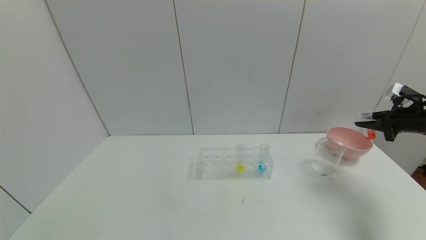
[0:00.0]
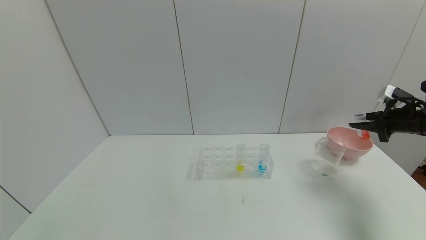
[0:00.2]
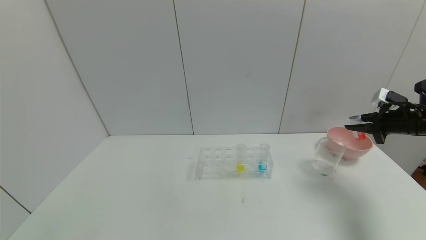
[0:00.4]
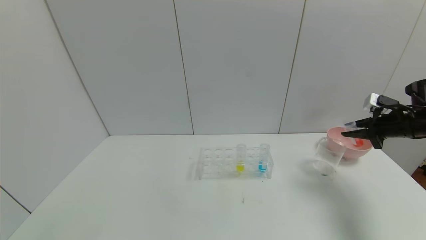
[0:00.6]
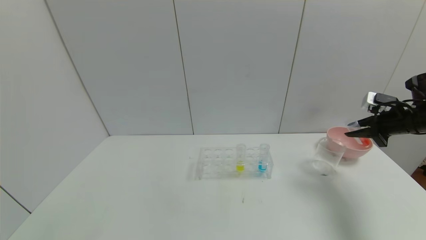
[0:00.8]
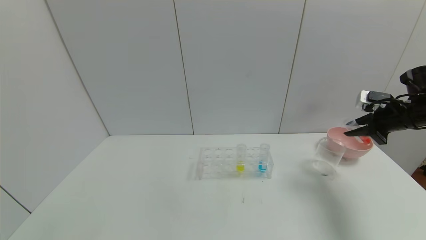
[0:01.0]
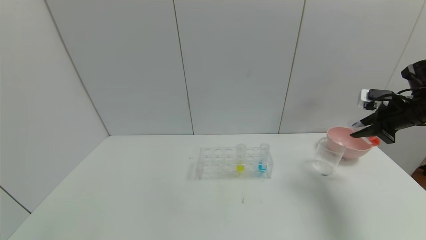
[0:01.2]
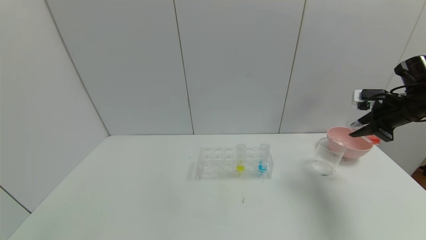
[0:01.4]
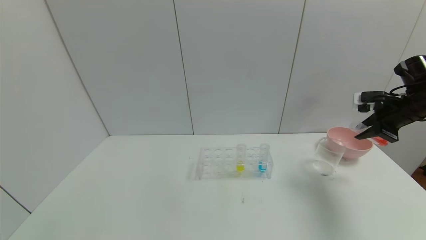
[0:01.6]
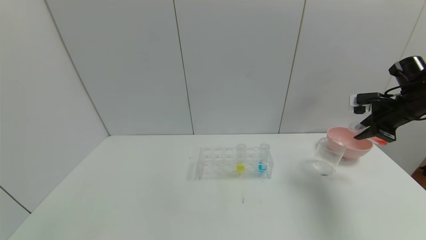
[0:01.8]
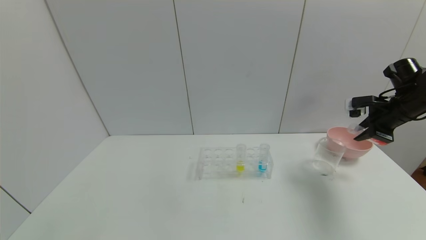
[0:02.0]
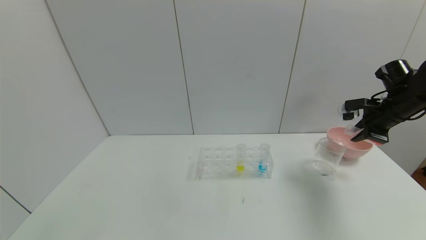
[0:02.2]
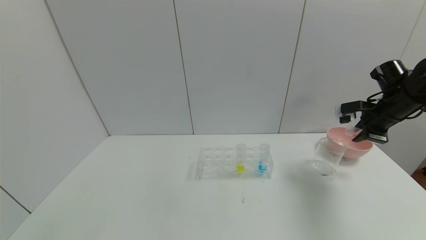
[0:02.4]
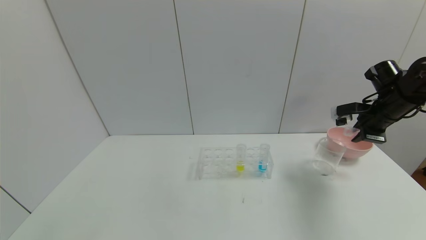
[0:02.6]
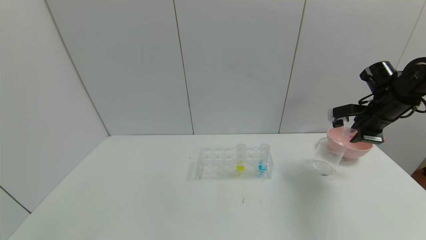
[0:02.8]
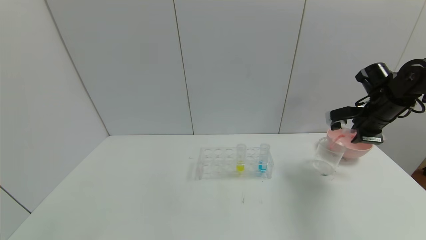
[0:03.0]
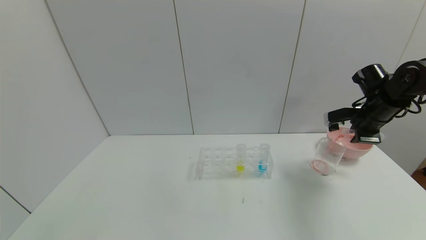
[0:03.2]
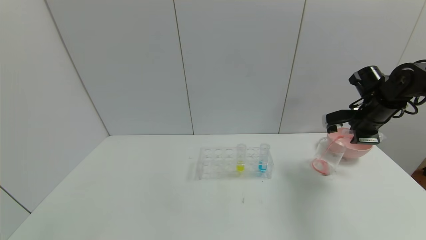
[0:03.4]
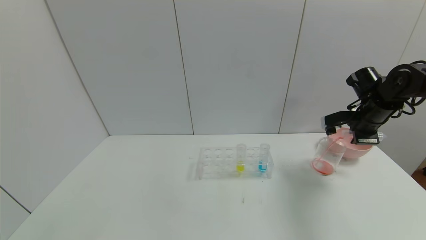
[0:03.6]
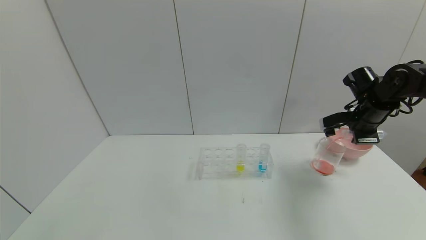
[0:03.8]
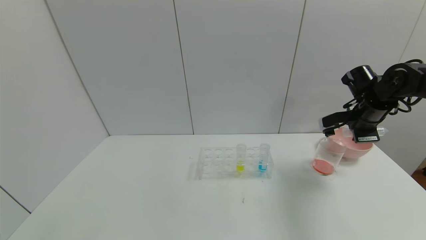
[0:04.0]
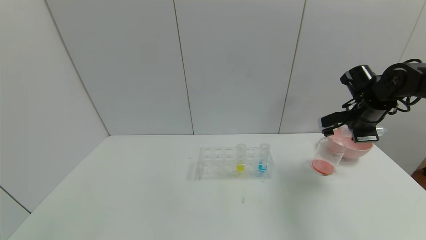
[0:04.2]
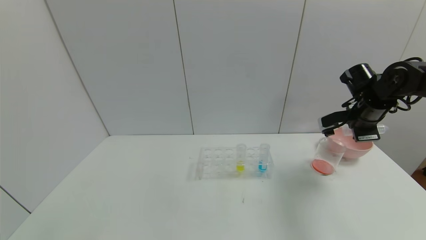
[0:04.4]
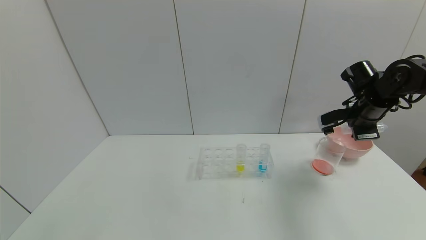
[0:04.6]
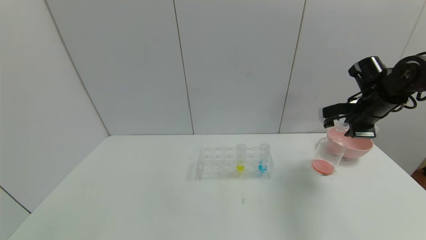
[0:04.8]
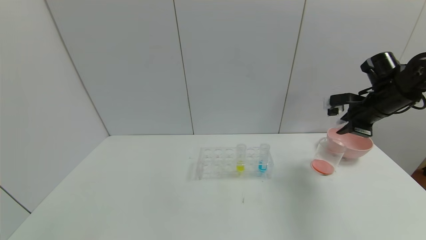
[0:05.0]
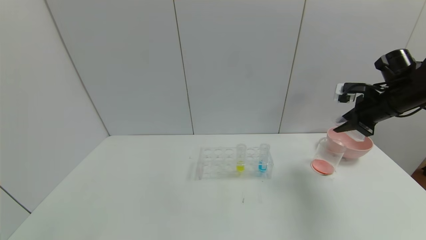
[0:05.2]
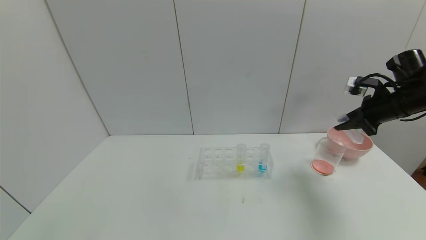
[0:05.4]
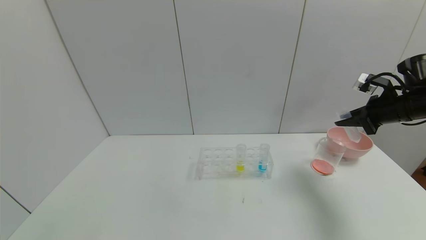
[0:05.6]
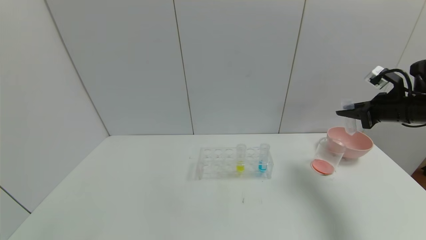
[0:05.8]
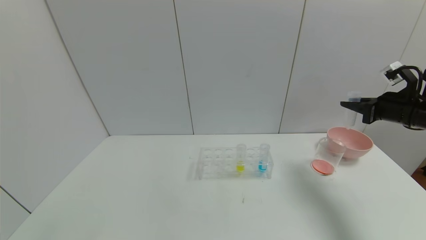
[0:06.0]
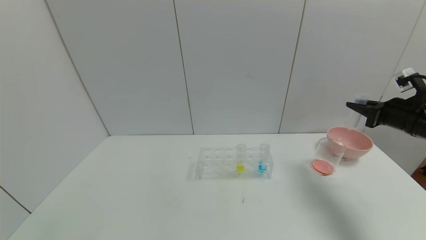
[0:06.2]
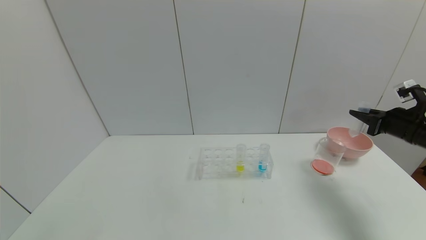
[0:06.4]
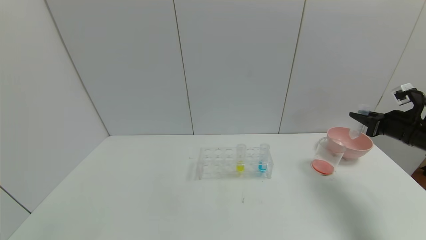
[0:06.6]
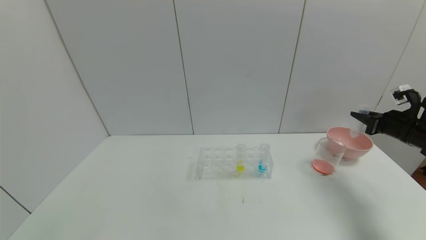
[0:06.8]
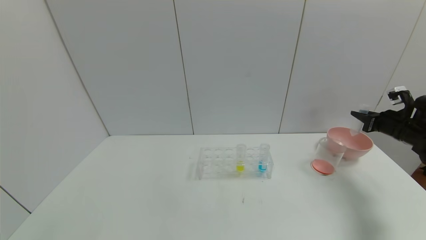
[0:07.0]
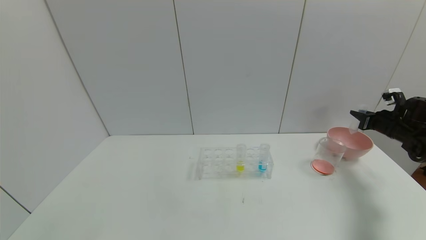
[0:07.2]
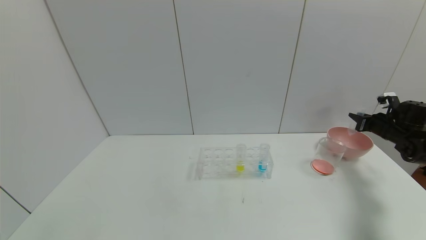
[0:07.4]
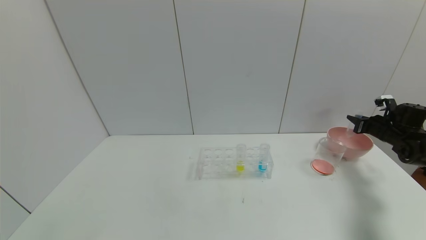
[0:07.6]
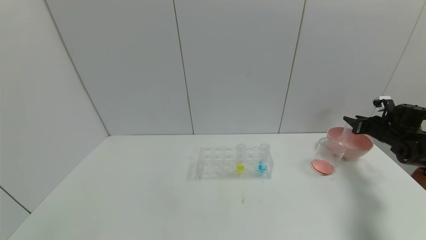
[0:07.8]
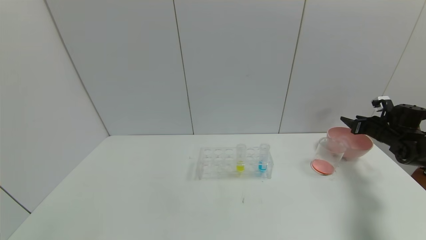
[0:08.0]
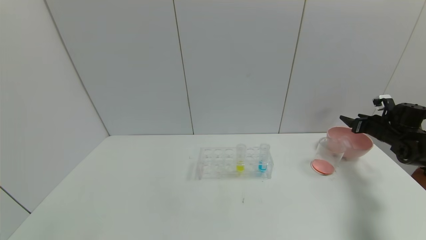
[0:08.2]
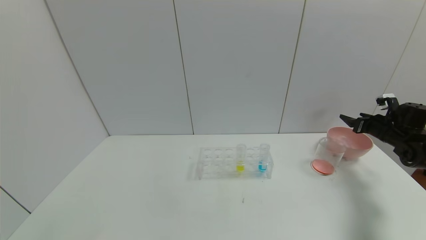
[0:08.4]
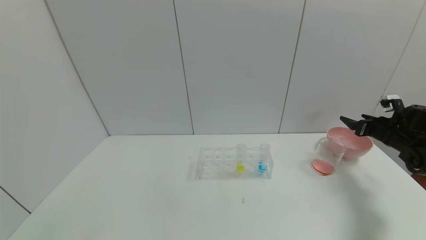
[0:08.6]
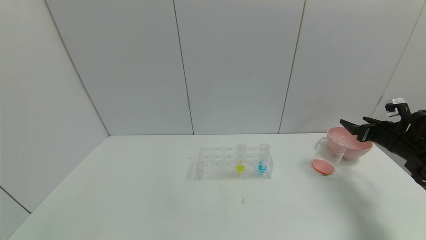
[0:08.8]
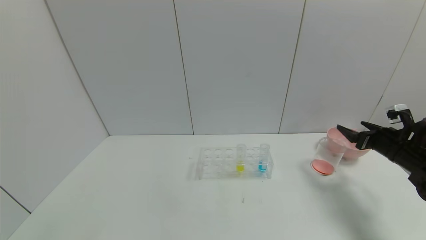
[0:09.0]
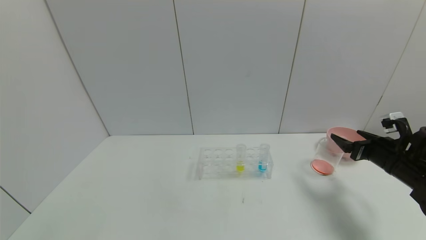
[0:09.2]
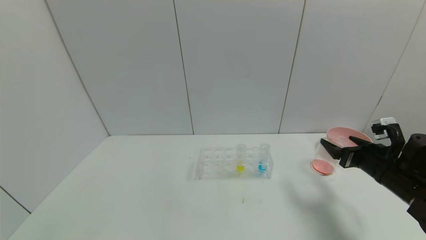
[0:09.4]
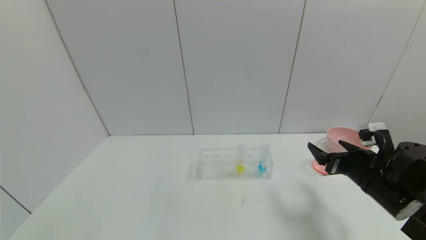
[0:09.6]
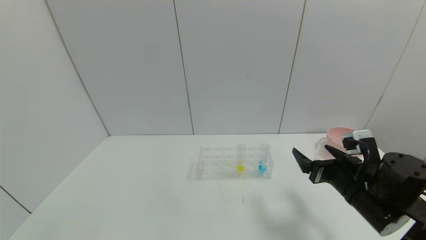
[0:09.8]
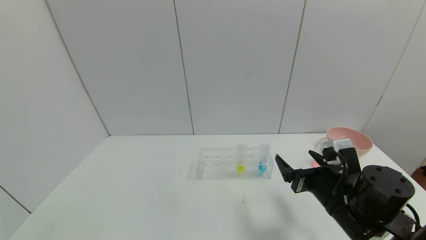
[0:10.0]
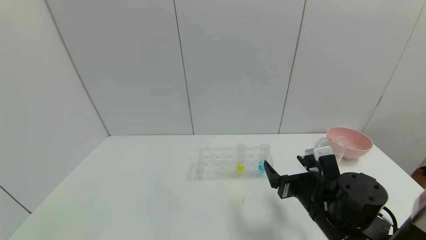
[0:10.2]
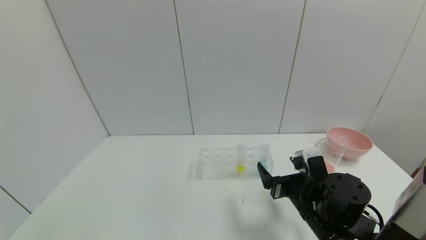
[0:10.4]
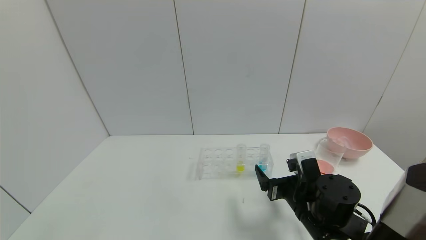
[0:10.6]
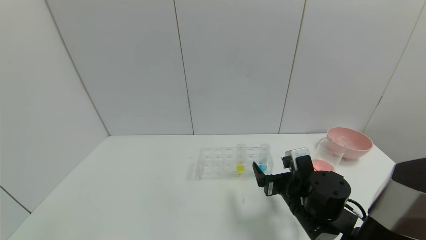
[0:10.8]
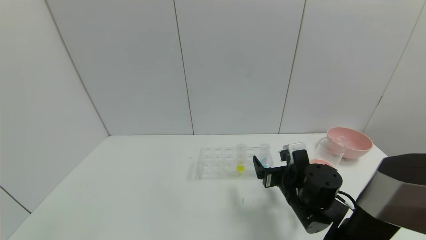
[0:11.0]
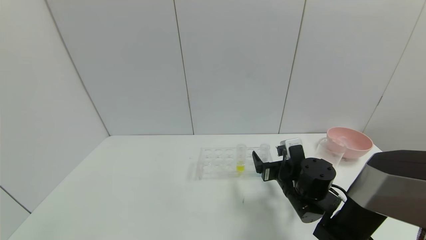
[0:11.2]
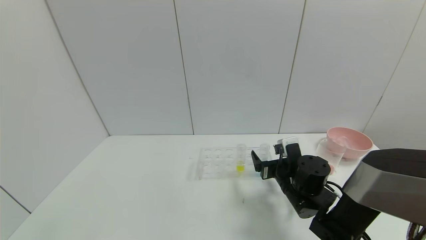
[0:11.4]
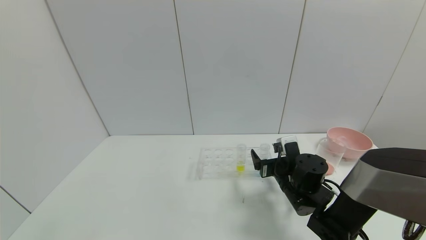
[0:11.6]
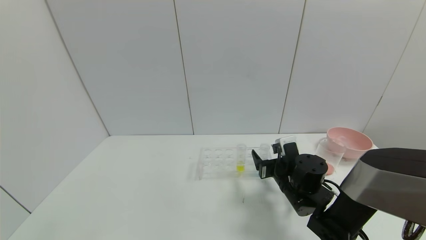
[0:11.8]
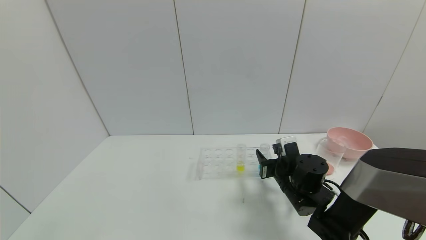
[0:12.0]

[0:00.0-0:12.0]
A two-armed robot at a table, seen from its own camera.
Task of the whole recording: pick up the test tube with red pigment and the test tube with blue pigment by grippers and pour them into the container.
Step, 0:00.0 to 0:04.8: Pour the yellow reagent into the graduated cylinder with the right gripper.
Step, 0:05.0 to 0:08.6: Place the test tube into the bowl with the right gripper.
0:00.0 to 0:01.6: The right gripper goes about 5 cm to the left.
0:01.6 to 0:03.0: The right gripper changes place by roughly 5 cm.
0:03.0 to 0:04.4: The grippers make only small movements.
0:04.4 to 0:06.0: The right gripper heads to the right, covering roughly 5 cm.
0:06.0 to 0:07.6: The right gripper moves downward, forward and to the right, approximately 15 cm.
0:07.6 to 0:09.0: The right gripper shifts about 10 cm backward and to the left, and opens its fingers.
0:09.0 to 0:10.4: The right gripper goes approximately 30 cm to the left and backward.
0:10.4 to 0:12.0: The right gripper moves forward, approximately 10 cm, and closes its fingers.

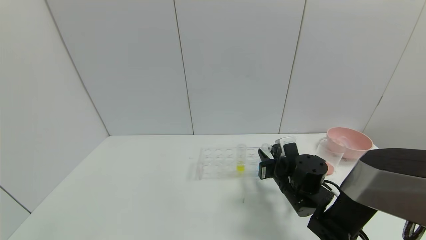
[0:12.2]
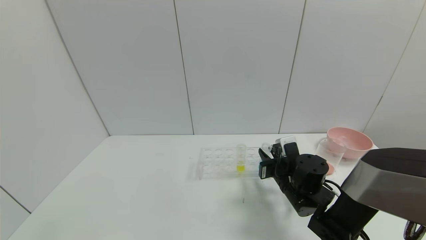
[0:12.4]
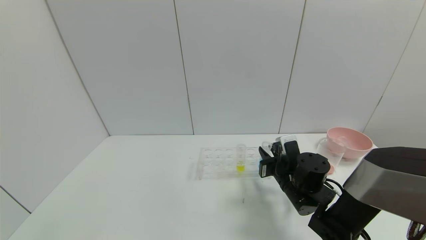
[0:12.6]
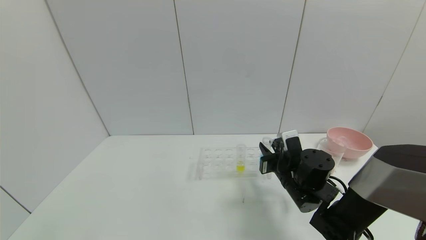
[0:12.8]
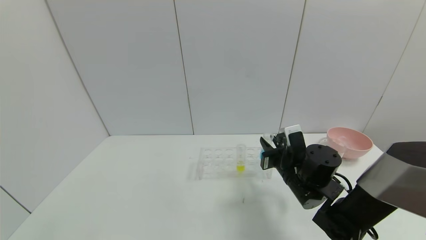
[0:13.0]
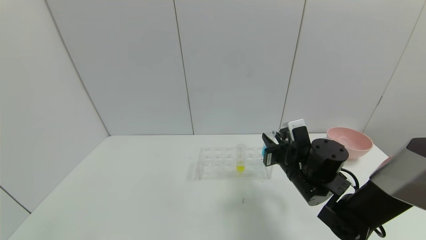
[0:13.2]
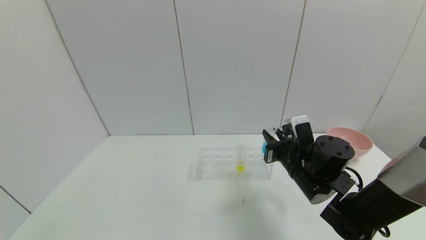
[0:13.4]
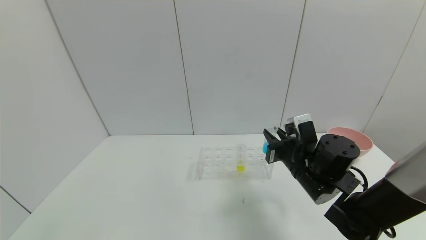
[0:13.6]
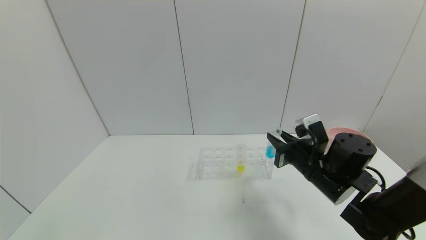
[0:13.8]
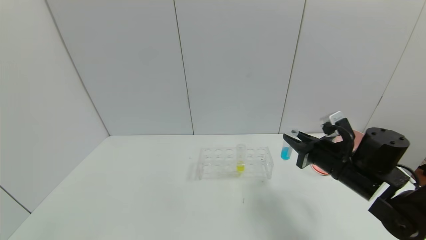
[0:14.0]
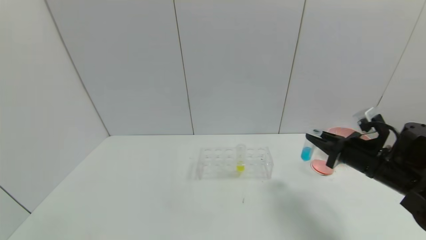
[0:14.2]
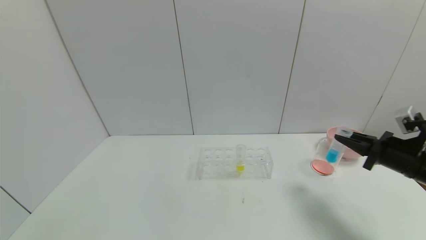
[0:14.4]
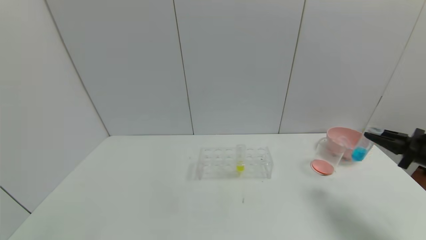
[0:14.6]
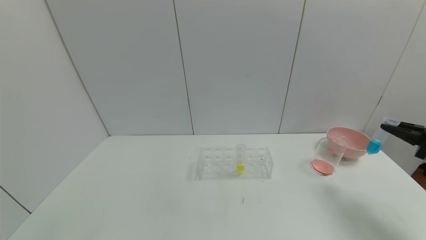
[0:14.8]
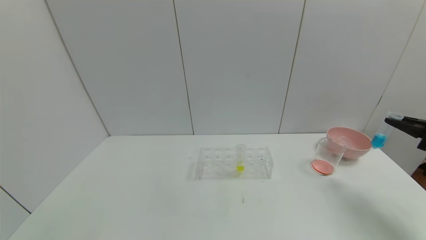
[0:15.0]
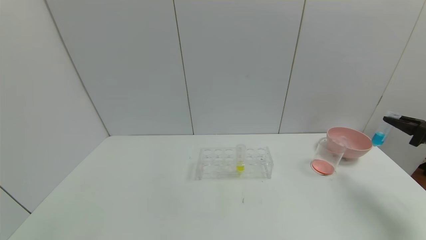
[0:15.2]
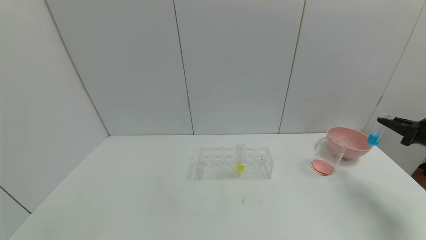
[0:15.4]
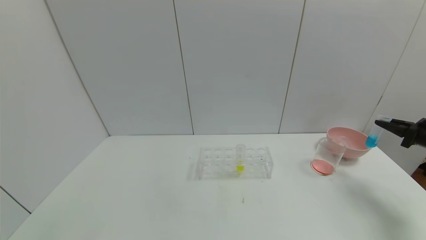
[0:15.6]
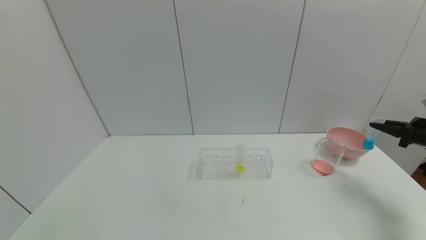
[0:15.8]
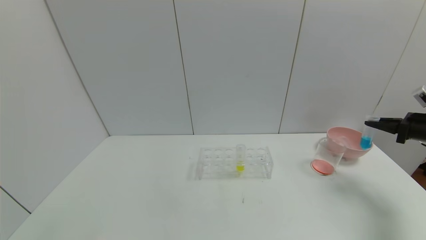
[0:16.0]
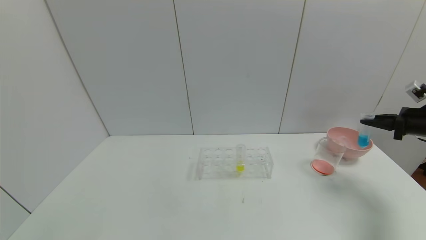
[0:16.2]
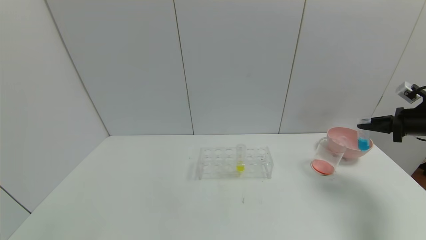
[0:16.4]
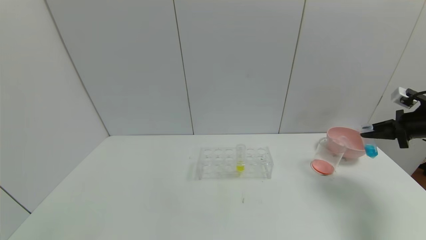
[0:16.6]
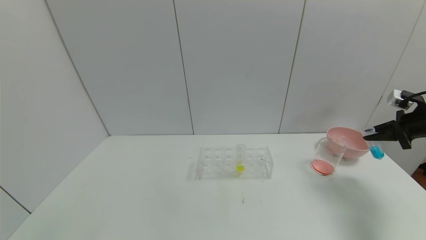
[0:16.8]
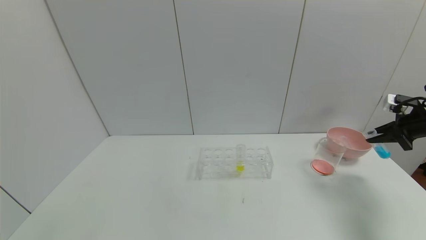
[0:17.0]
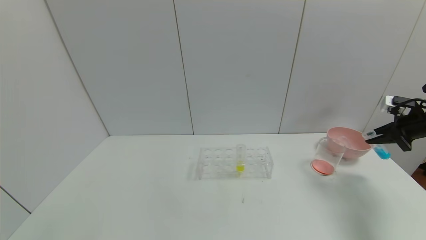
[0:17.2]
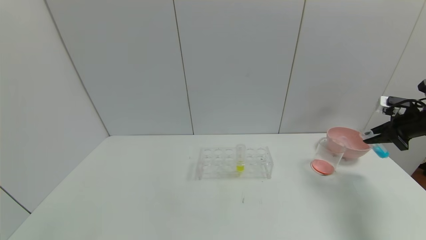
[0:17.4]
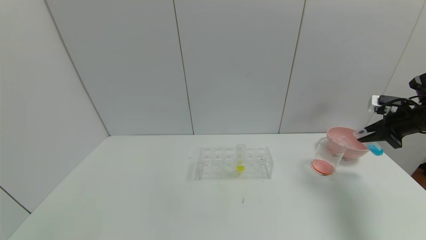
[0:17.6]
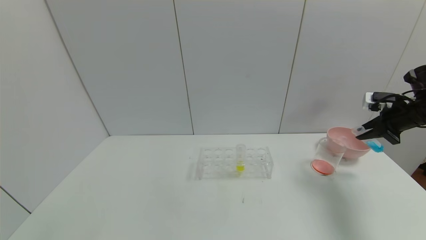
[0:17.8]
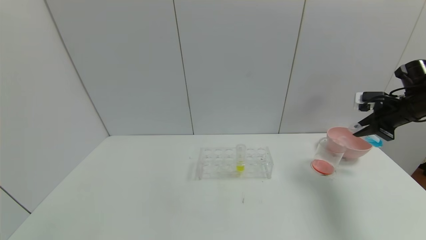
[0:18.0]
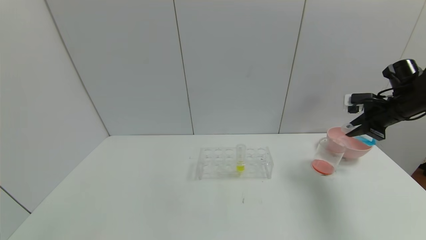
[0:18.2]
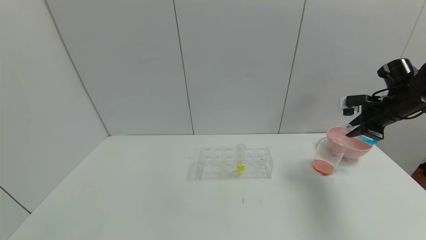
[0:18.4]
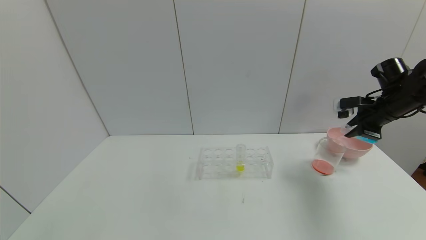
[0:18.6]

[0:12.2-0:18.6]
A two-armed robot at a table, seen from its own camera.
Task of the whole recording: pick up the test tube with red pigment and the test tube with blue pigment by grippers and pour them into the container.
0:12.2 to 0:13.8: The right gripper goes roughly 5 cm upward.
0:13.8 to 0:15.4: The right gripper travels to the right by some 30 cm.
0:15.4 to 0:17.0: The right gripper shifts by about 5 cm.
0:17.0 to 0:18.6: The right gripper shifts roughly 10 cm to the left.
